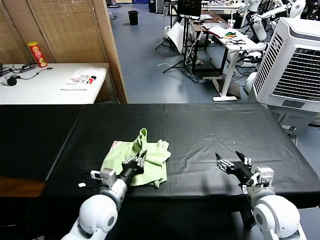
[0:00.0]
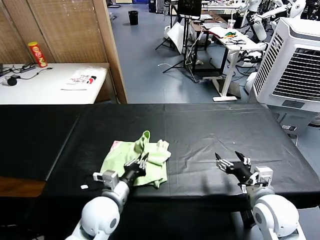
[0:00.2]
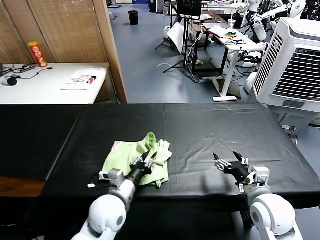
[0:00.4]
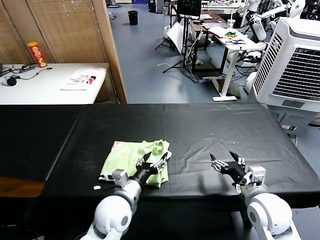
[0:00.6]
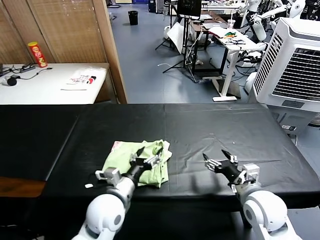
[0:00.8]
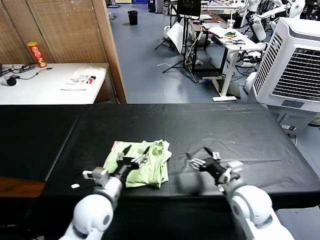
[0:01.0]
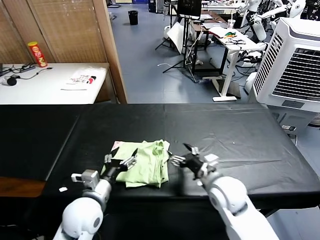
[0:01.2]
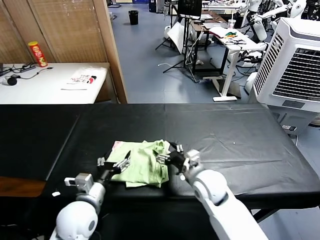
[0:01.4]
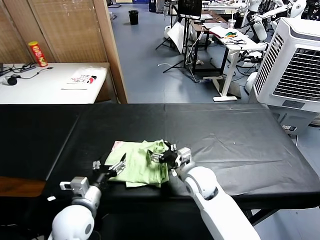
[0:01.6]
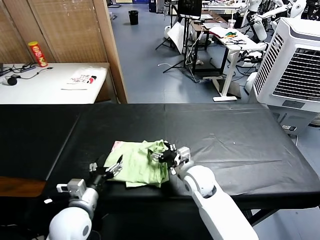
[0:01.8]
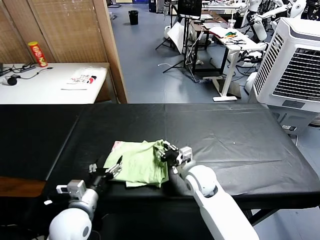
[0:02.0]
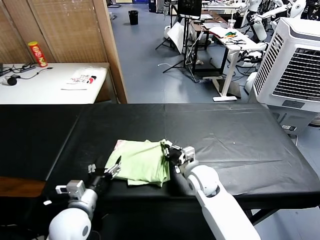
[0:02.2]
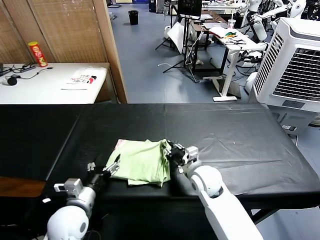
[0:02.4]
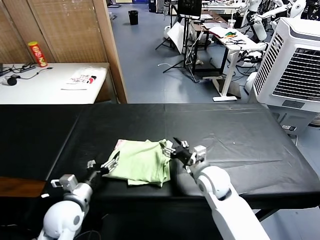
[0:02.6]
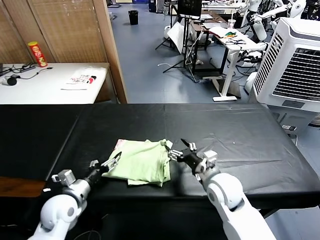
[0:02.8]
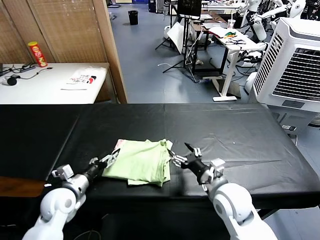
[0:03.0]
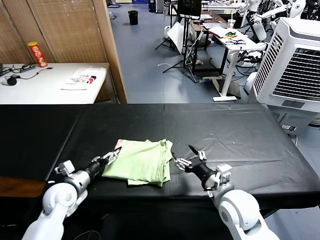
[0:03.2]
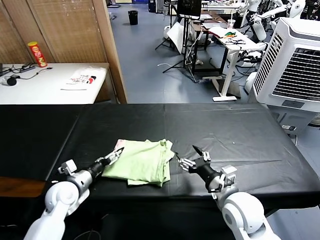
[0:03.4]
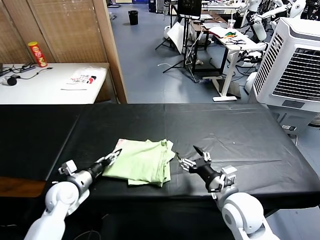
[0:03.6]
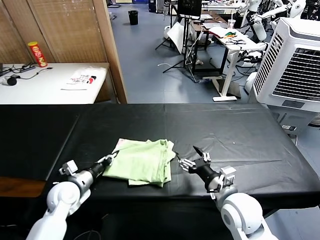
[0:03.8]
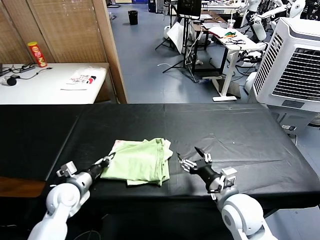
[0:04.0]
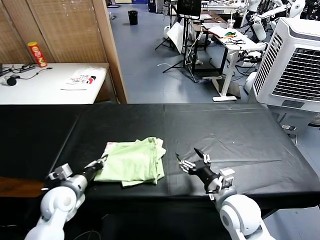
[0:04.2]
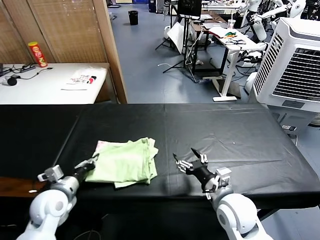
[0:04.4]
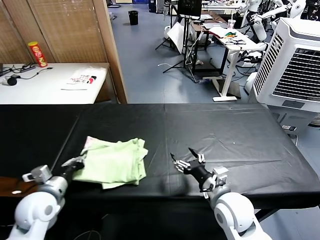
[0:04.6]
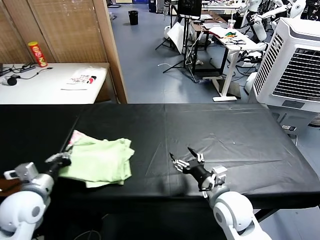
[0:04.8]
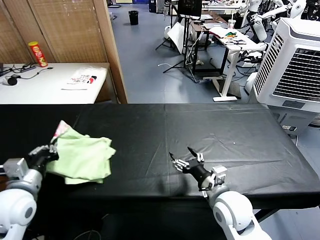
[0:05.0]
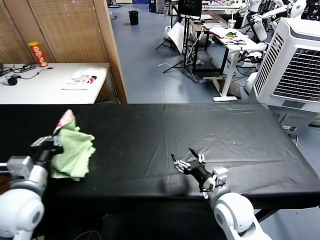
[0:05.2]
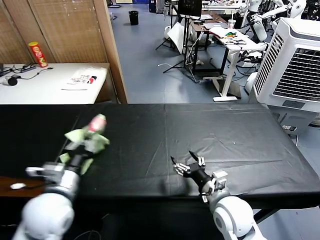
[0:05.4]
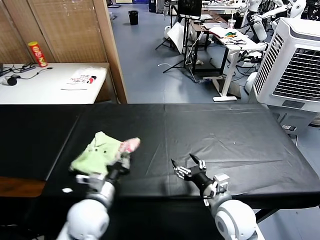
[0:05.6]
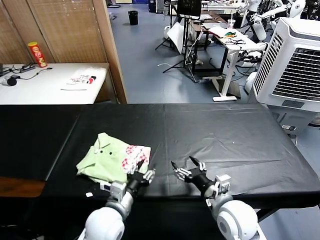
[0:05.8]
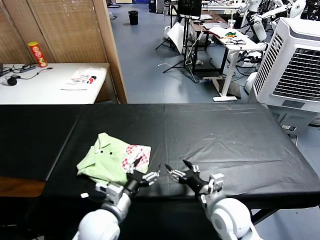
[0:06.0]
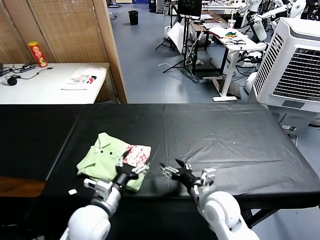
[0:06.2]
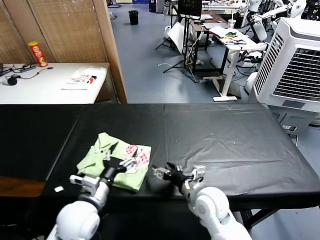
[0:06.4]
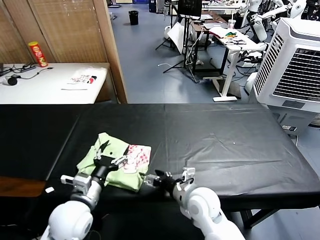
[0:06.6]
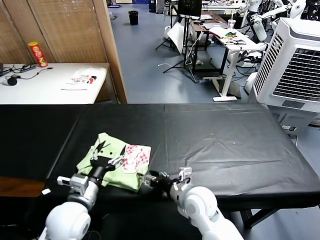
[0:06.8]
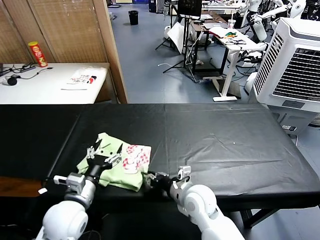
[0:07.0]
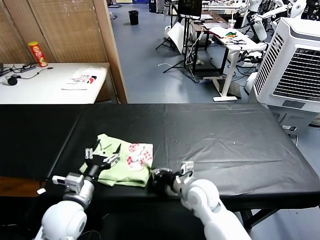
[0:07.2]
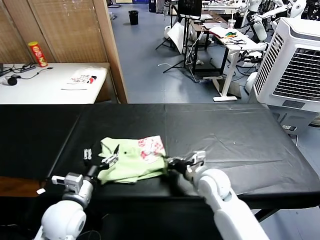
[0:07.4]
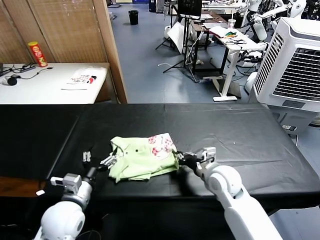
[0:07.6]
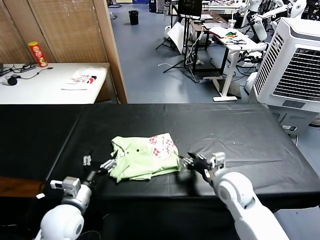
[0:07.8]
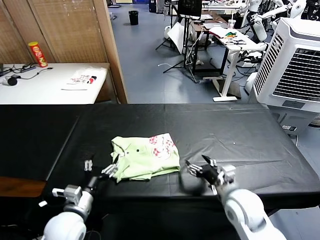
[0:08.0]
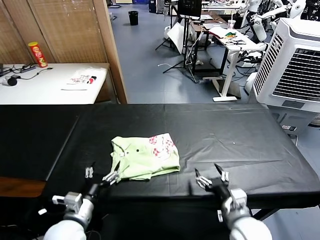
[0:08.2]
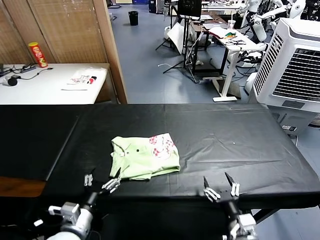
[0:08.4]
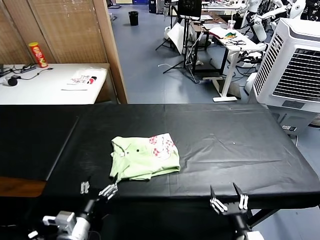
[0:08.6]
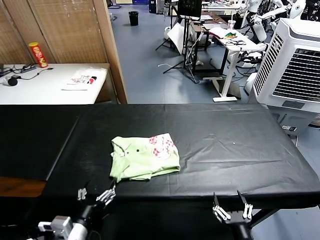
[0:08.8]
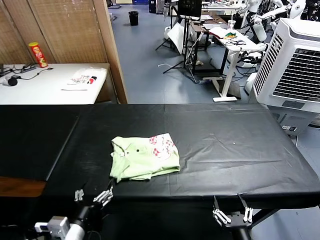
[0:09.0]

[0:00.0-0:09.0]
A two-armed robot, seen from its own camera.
Task of the whole recording: fold and organize the clothes.
Step, 0:00.8 to 0:05.6: Flip the folded clothes over with left gripper.
Step, 0:05.8 to 0:07.6: Drag the clothes to the center of the table.
0:00.0 to 0:01.6: The left gripper goes about 5 cm to the left, and opens up. The right gripper heads to the left and forward, covering some 20 cm.
0:01.6 to 0:03.0: The left gripper is displaced to the left and forward by some 10 cm; the right gripper moves to the right and backward, roughly 10 cm, and closes, then reopens.
0:03.0 to 0:04.4: The left gripper closes.
0:04.4 to 0:06.0: The left gripper heads to the right, covering approximately 20 cm, and opens.
0:06.0 to 0:07.6: The right gripper shifts approximately 10 cm forward, and closes its fingers. The left gripper goes roughly 10 cm to the left.
0:07.6 to 0:09.0: The right gripper moves backward, some 30 cm, and opens. Meanwhile the left gripper moves backward, roughly 10 cm.
